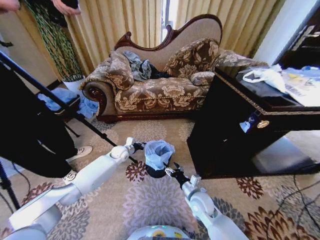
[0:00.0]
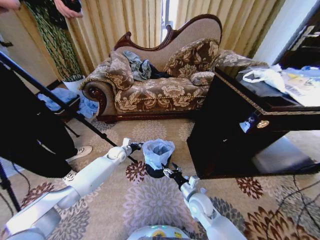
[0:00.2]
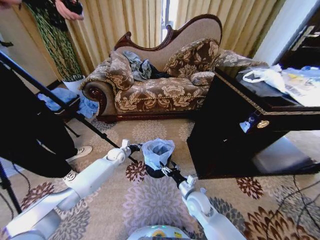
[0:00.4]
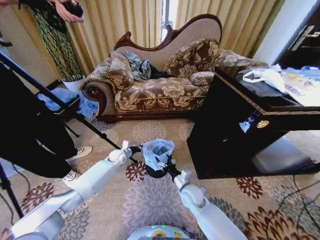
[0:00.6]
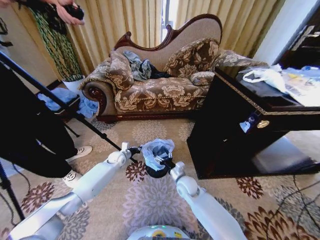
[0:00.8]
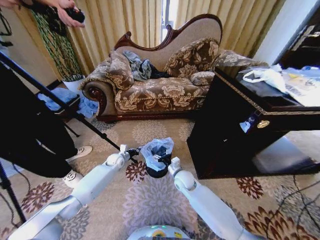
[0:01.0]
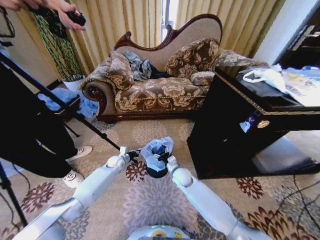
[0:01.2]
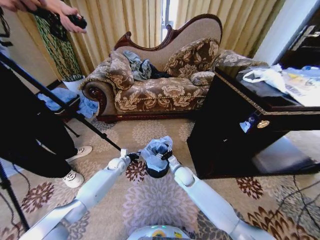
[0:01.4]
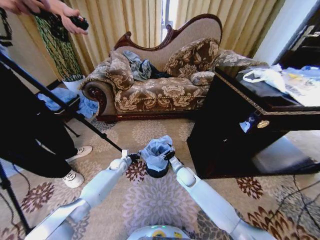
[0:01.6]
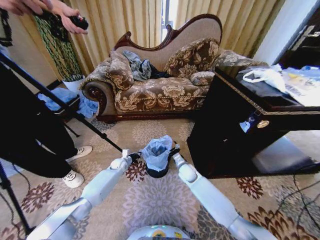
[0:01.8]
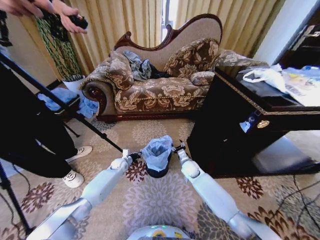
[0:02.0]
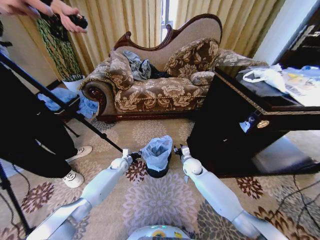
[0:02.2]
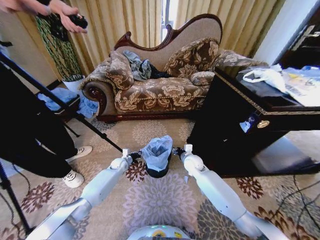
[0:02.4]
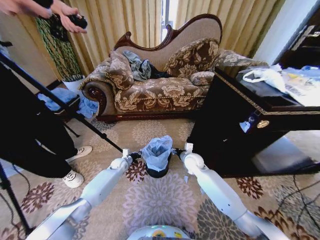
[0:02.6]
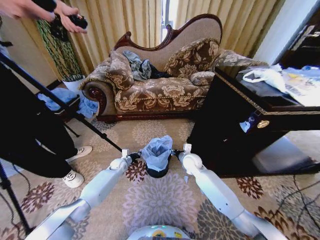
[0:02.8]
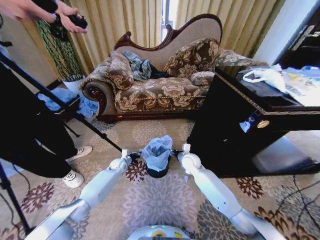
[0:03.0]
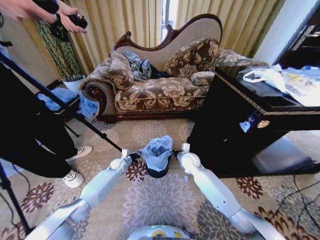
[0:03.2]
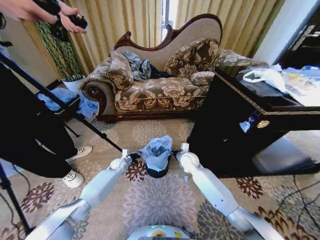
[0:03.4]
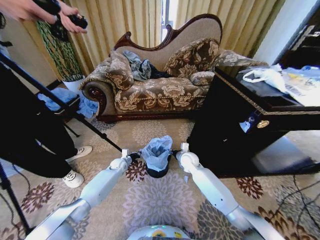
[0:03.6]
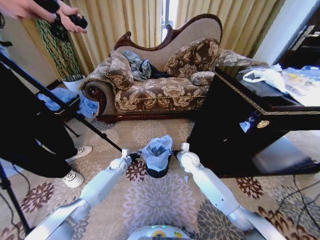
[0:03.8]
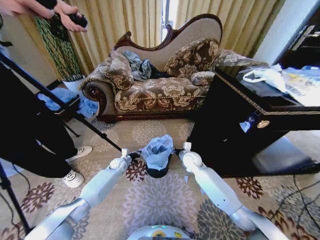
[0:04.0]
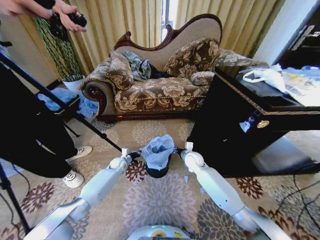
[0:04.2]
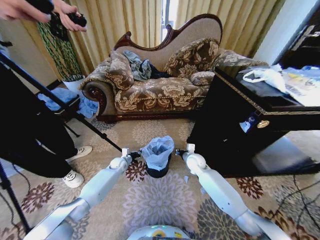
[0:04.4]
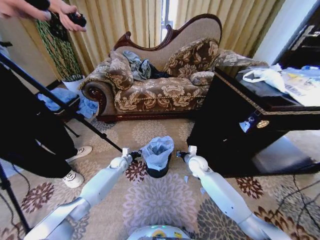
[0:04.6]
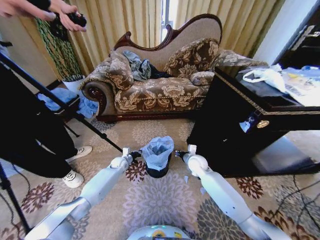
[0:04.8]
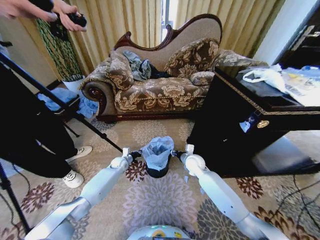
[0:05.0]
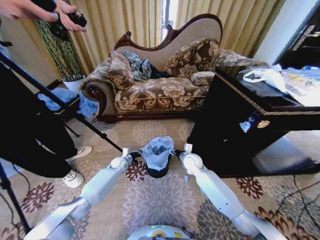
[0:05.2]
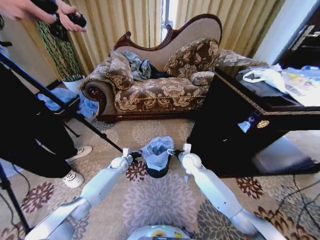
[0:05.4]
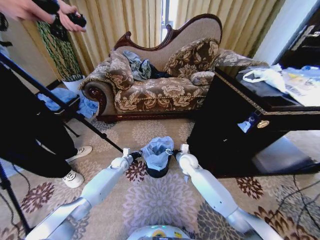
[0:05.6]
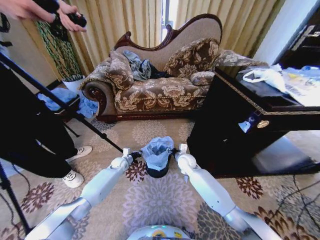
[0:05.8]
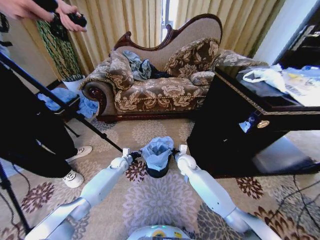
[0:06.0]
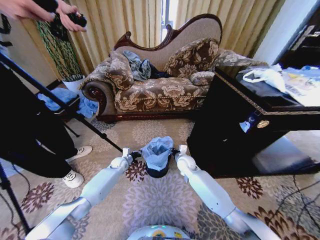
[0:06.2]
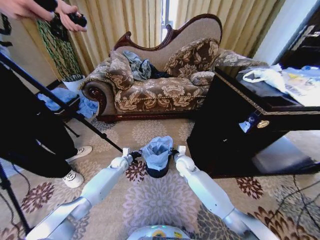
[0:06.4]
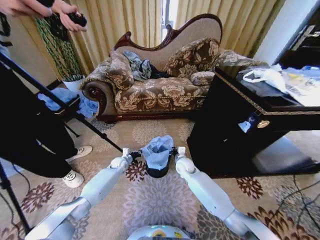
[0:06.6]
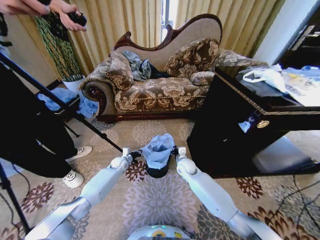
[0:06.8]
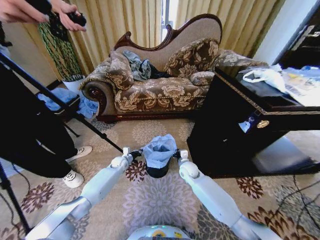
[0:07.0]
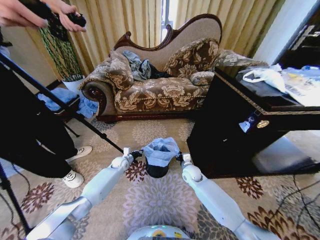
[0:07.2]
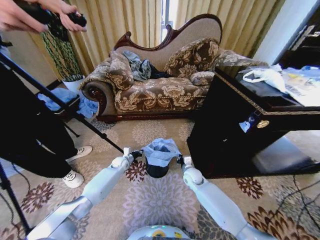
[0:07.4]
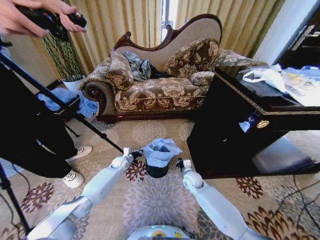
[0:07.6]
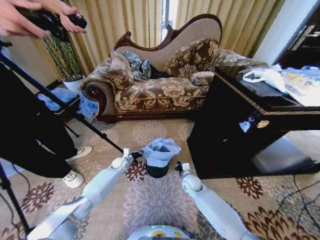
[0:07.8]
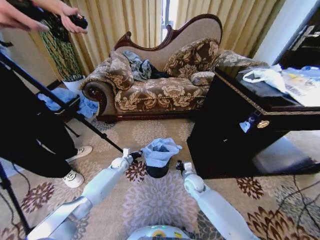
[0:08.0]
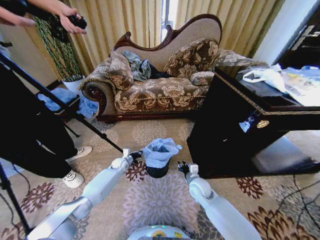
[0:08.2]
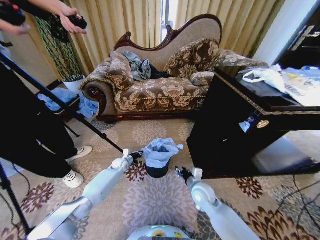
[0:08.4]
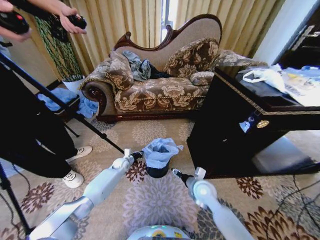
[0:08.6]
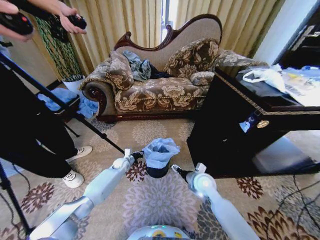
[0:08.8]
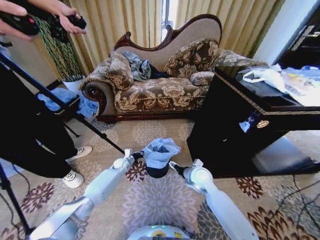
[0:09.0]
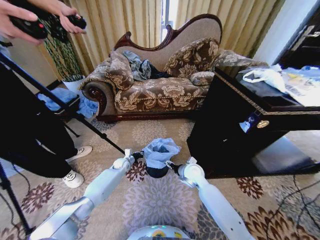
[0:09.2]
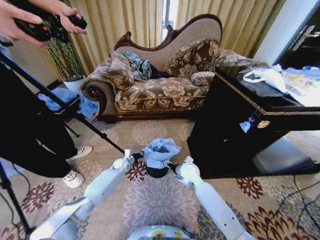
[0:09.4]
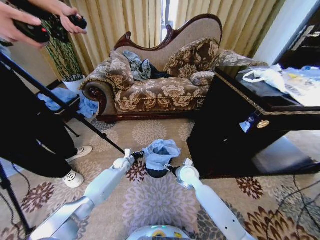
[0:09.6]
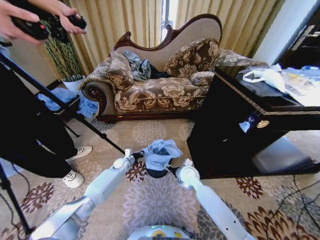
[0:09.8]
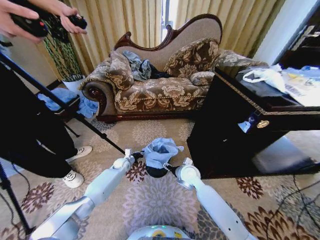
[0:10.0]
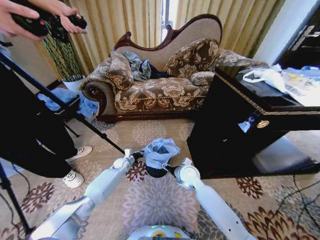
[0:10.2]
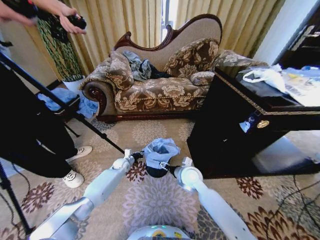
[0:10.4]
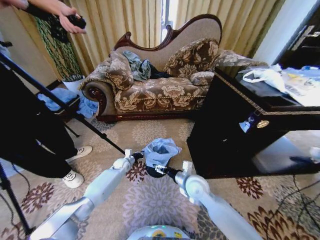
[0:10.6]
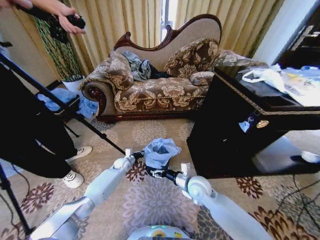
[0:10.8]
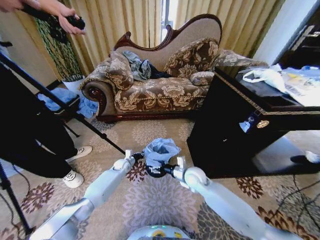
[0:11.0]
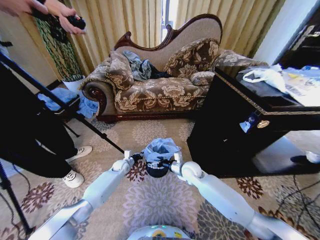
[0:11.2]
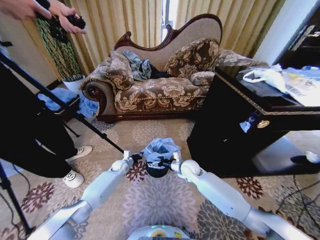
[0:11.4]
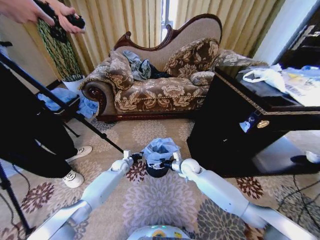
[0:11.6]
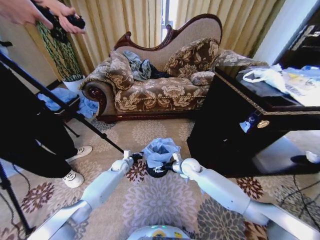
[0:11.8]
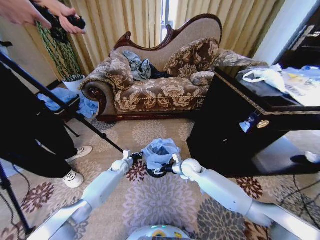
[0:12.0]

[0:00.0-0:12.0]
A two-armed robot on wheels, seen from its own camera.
Task of the whole recording: Place a garbage bag over the trash bin.
0:00.0 to 0:01.6: The left gripper goes approximately 10 cm downward, while the right gripper shifts roughly 10 cm forward.
0:01.6 to 0:03.0: The right gripper heads upward and forward, covering about 10 cm, and closes.
0:03.0 to 0:04.4: The grippers stay close to where they were, moving slightly.
0:04.4 to 0:06.0: The right gripper heads to the left, covering about 5 cm, and opens.
0:06.0 to 0:07.6: The right gripper travels downward and backward by some 10 cm, and closes its fingers.
0:07.6 to 0:09.0: The right gripper heads upward, covering some 10 cm, and opens.
0:09.0 to 0:10.4: The grippers move only a little.
0:10.4 to 0:12.0: The right gripper travels forward by roughly 5 cm.

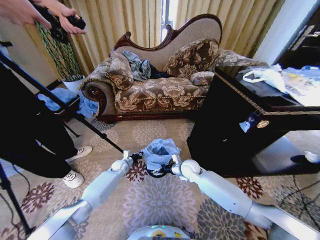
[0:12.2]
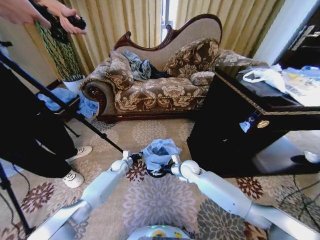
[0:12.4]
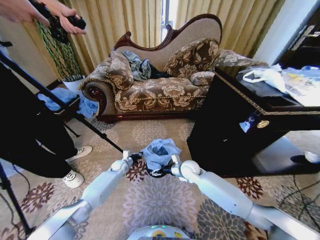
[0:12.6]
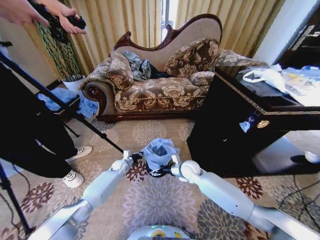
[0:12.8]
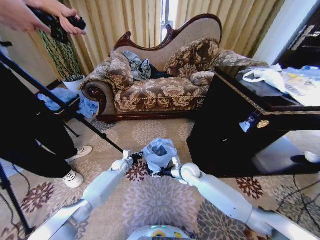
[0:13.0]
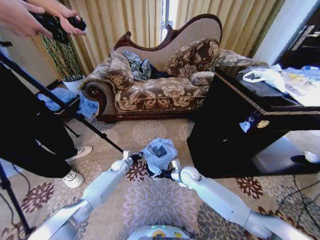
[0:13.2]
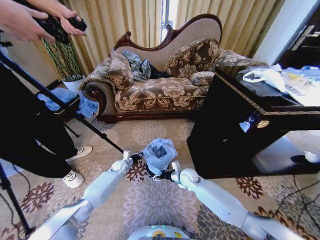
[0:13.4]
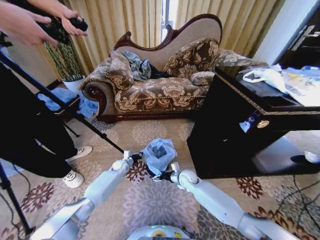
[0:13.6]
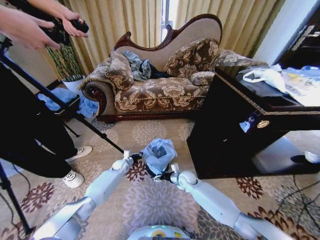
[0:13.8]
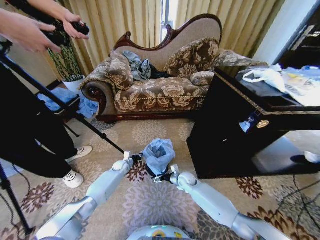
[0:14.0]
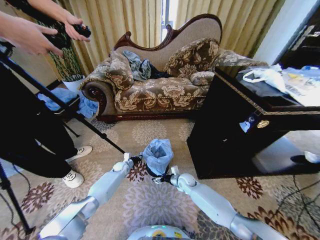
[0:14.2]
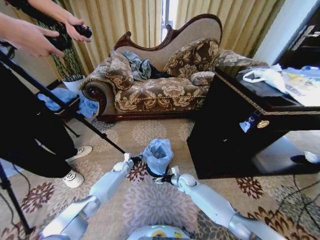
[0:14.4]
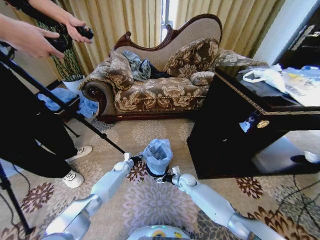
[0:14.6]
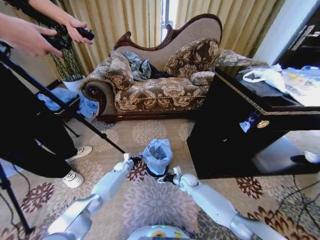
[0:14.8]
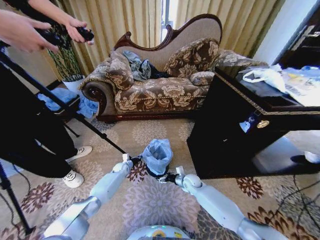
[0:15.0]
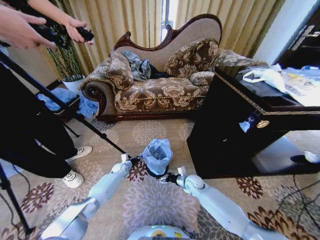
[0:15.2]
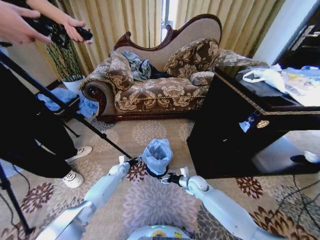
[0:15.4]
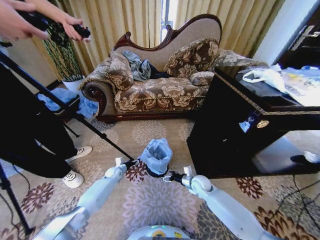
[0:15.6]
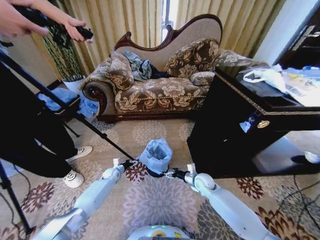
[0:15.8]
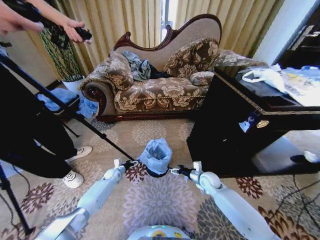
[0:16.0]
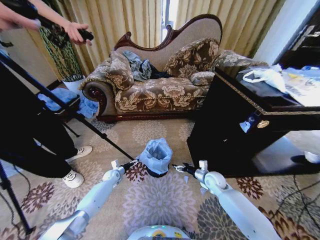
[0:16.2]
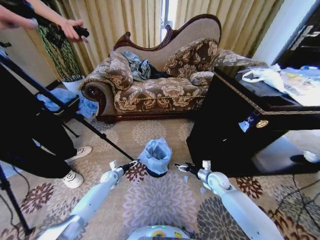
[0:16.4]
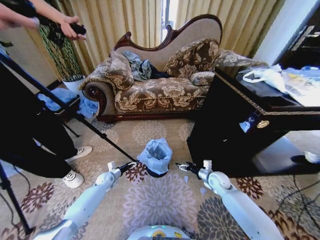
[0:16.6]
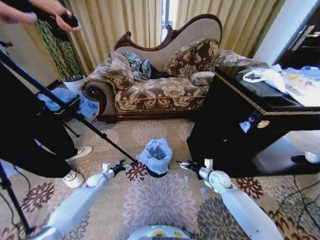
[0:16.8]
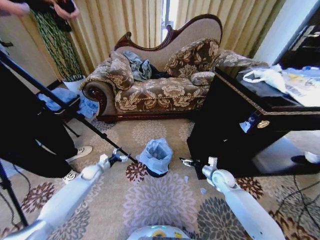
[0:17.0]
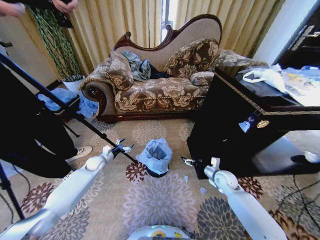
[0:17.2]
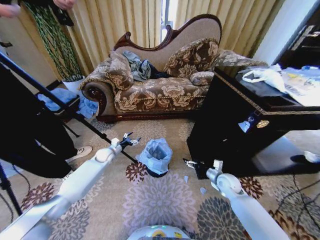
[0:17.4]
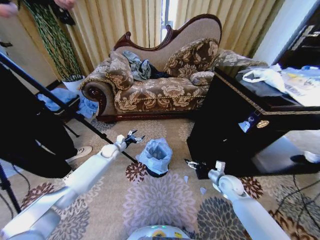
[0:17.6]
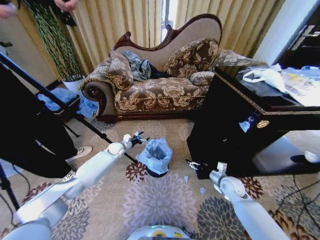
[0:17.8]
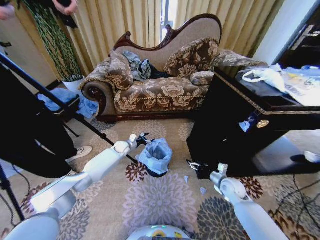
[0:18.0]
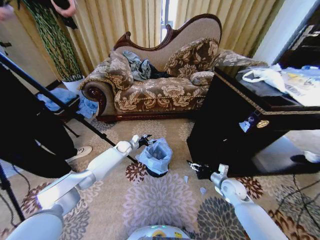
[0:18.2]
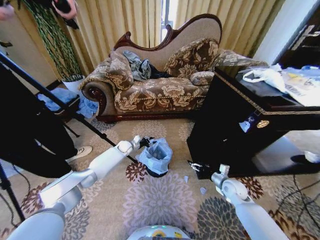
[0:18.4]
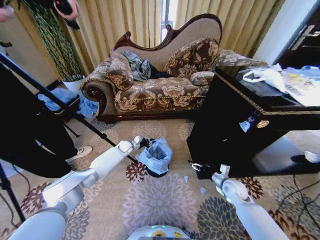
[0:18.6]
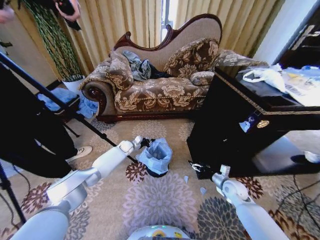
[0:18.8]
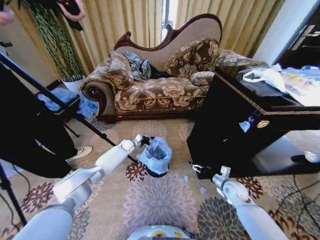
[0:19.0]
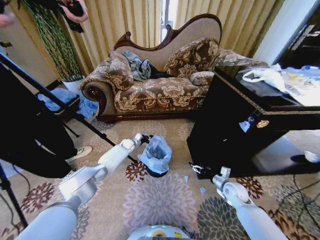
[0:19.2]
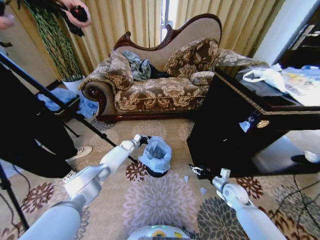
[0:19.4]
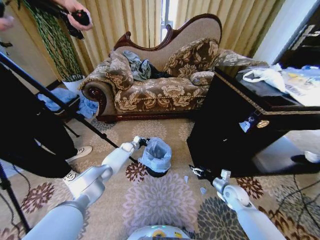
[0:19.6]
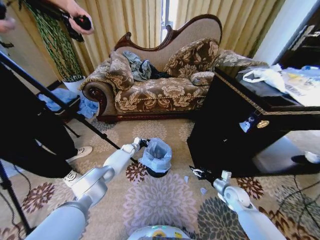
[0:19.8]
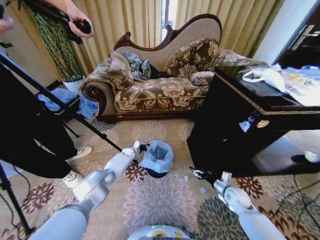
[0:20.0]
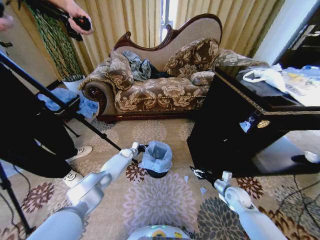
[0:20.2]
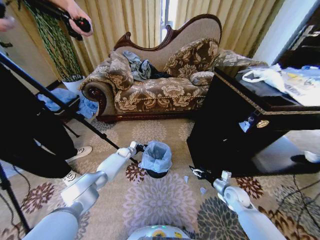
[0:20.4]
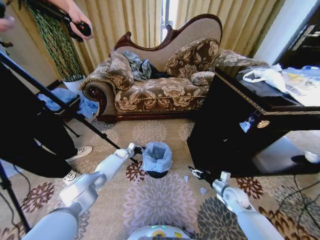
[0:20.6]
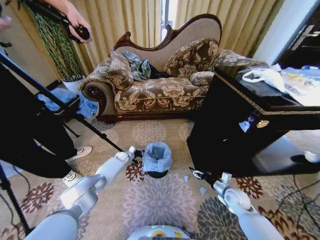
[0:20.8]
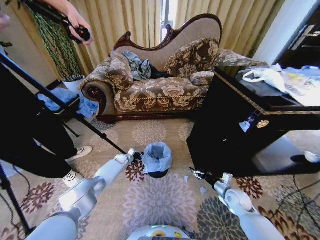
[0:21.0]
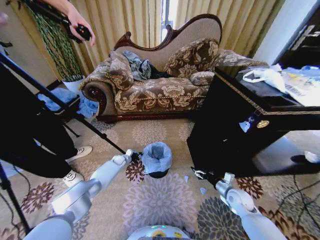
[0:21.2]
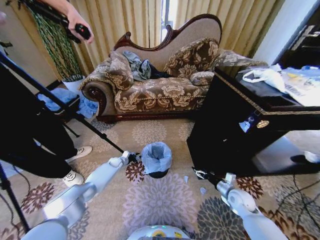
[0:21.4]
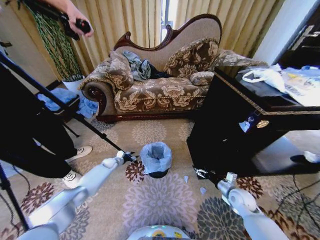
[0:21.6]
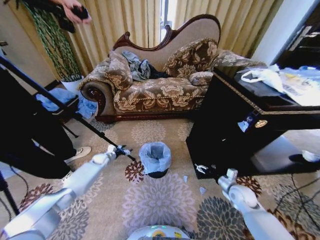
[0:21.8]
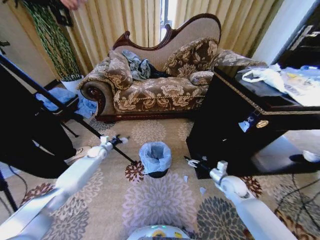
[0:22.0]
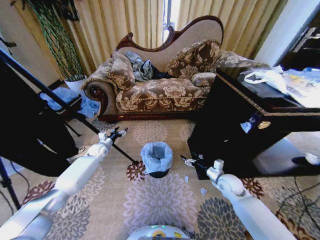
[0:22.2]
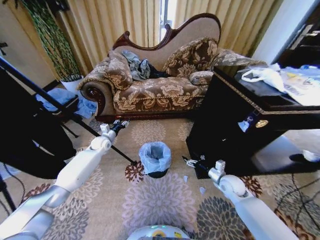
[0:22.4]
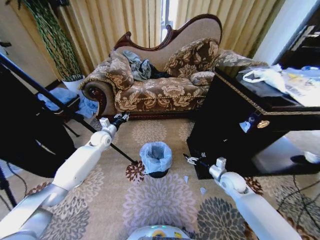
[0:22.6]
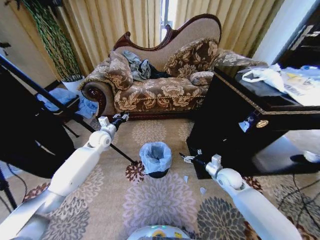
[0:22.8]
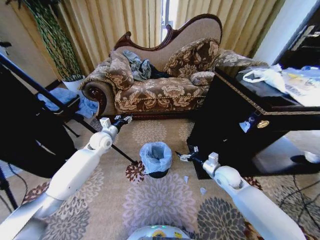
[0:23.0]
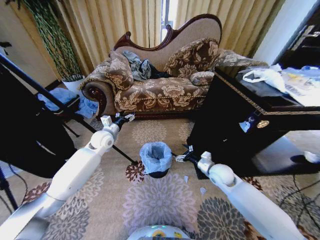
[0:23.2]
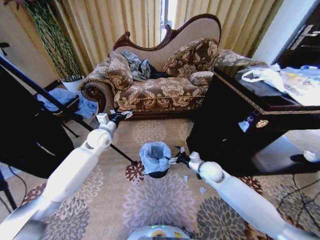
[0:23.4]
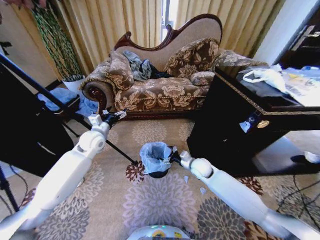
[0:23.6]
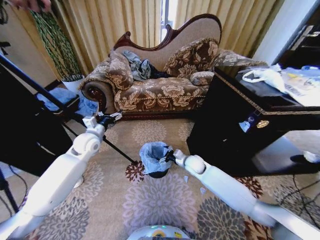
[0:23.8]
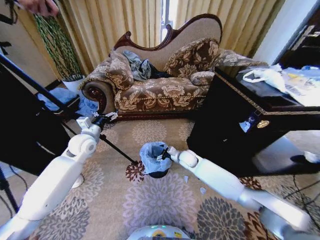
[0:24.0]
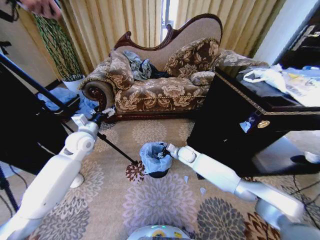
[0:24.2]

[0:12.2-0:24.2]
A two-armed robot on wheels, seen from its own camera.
Task of the whole recording: Place a garbage bag over the trash bin.
0:12.2 to 0:13.8: The right gripper travels downward by approximately 10 cm.
0:13.8 to 0:15.2: The grippers move only a little.
0:15.2 to 0:16.6: The right gripper heads to the right and upward, covering approximately 15 cm, while the left gripper moves backward and to the left, roughly 10 cm, and opens.
0:16.6 to 0:18.2: The right gripper ends up approximately 5 cm from where it was. Meanwhile the left gripper heads forward, upward and to the right, covering approximately 20 cm.
0:18.2 to 0:19.8: The left gripper is displaced downward by approximately 5 cm, and closes up.
0:19.8 to 0:21.2: The left gripper shifts about 10 cm backward and to the left.
0:21.2 to 0:22.6: The left gripper travels upward by roughly 25 cm, and opens and closes again. The right gripper heads forward and upward, covering some 10 cm.
0:22.6 to 0:24.2: The right gripper shifts about 25 cm to the left and forward; the left gripper heads backward and upward, covering roughly 15 cm, and opens.
